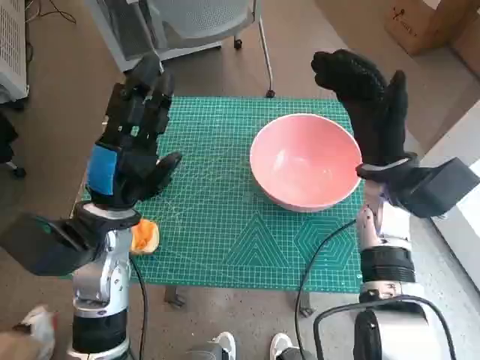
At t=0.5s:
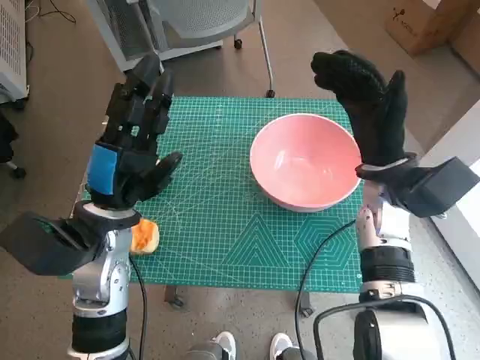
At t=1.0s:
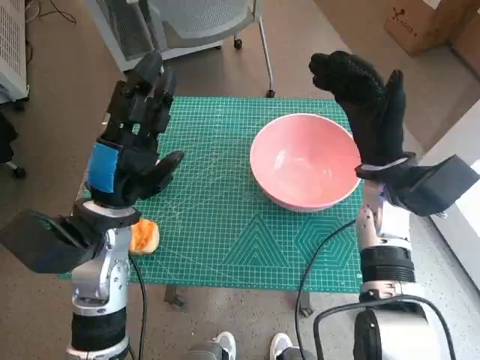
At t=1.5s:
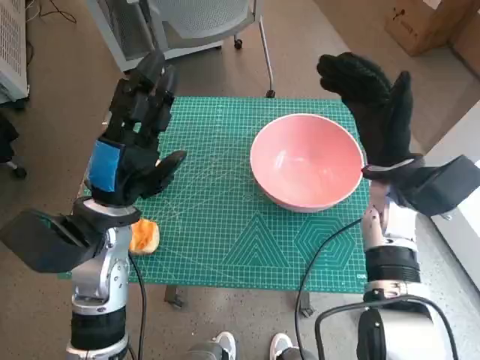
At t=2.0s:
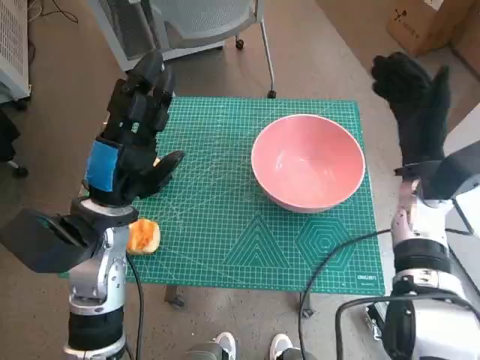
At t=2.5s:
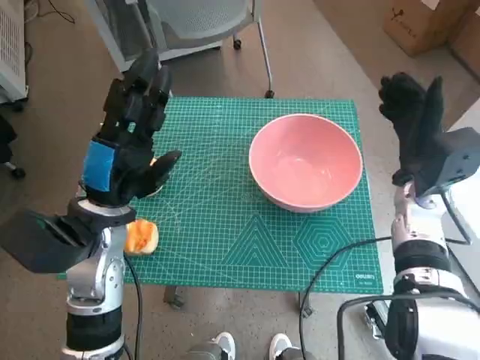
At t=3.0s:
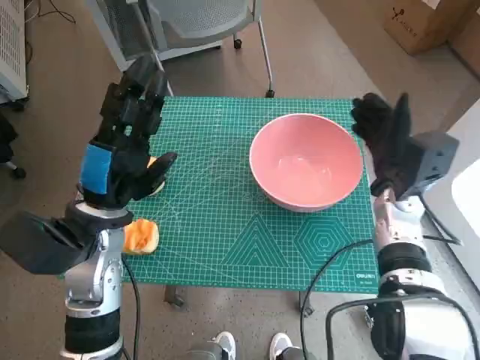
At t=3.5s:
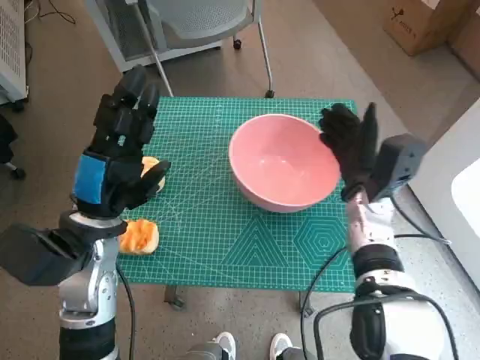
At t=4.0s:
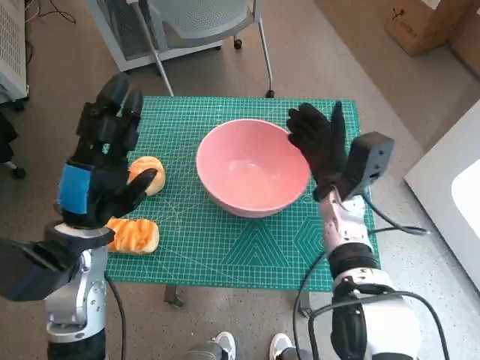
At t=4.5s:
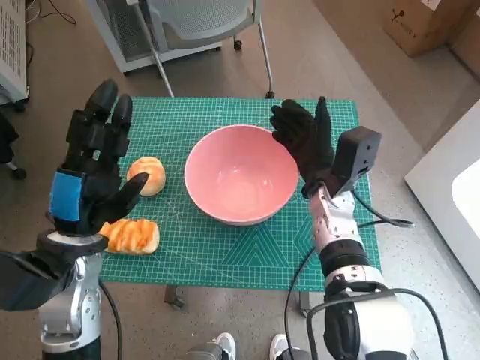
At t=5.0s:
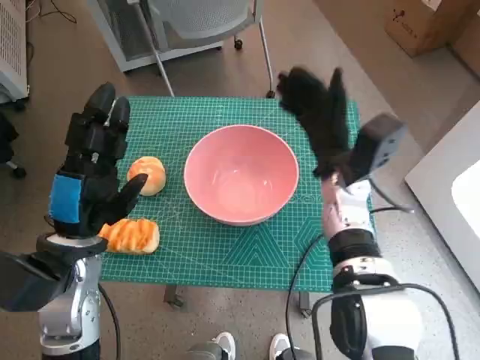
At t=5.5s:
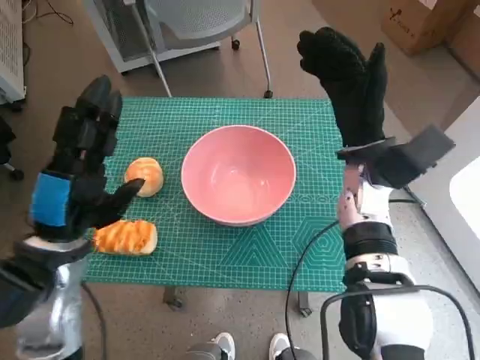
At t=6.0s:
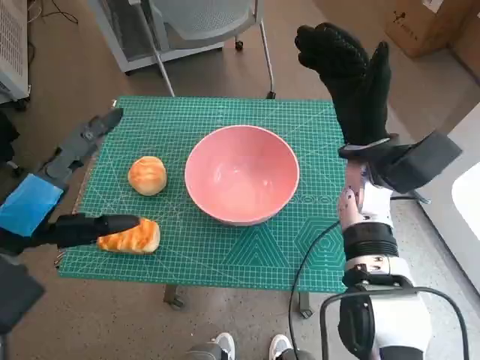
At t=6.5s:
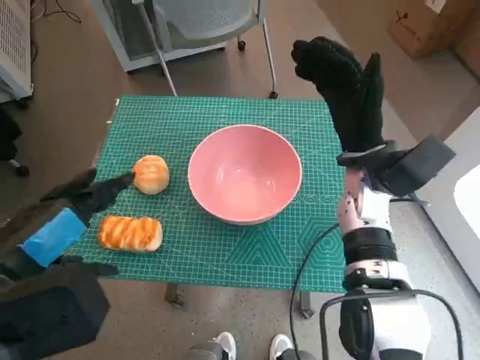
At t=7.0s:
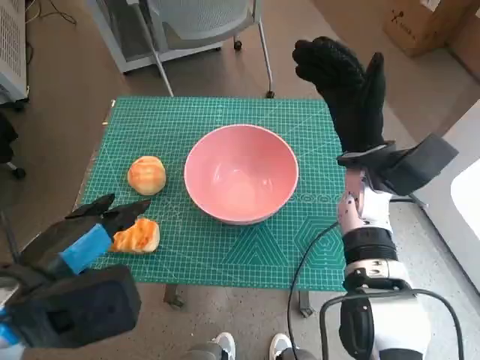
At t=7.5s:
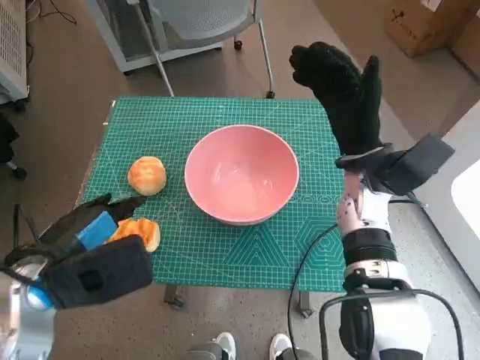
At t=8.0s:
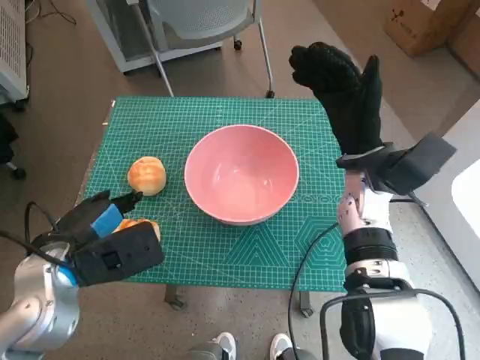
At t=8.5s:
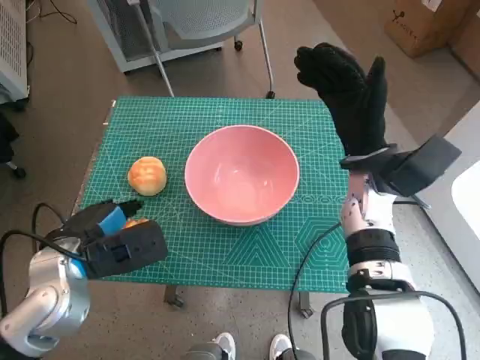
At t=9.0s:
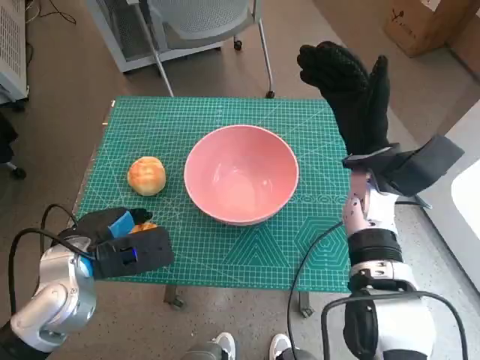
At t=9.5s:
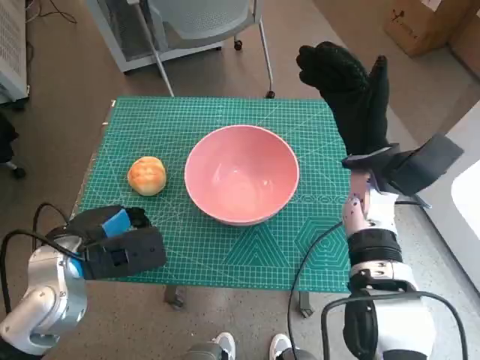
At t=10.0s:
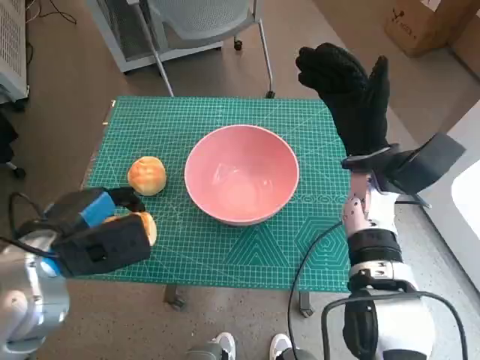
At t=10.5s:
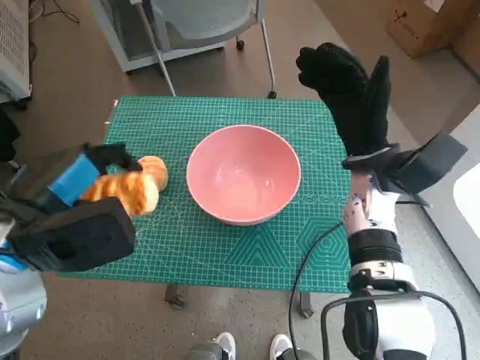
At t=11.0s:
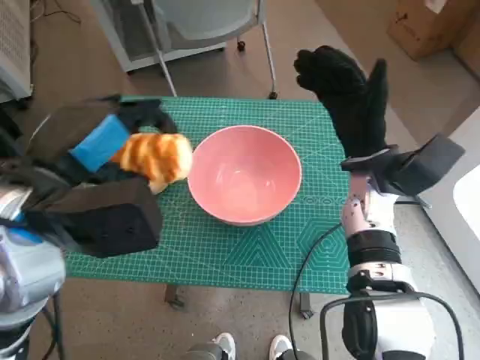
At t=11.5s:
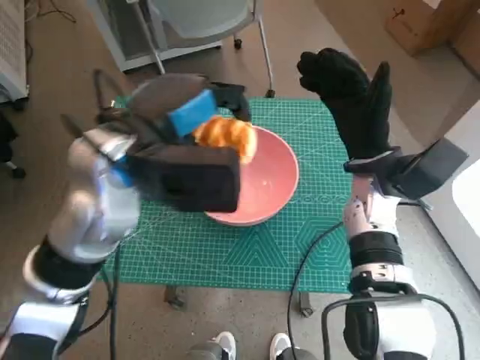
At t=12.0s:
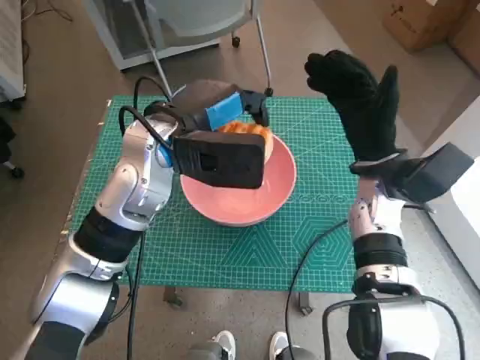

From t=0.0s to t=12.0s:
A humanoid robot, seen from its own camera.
Step, from t=0.0s to t=4.5s: Move the pink bowl to the center of table with right hand.
Step, from t=5.0s to t=9.0s: Grasp the long bread with left hand.
From t=2.0s to t=4.0s: The right hand travels to the left and downward by about 10 cm.
From t=4.0s to t=6.0s: The left hand goes roughly 10 cm upward and backward. The right hand travels upward by about 10 cm.
From t=6.0s to t=8.0s: The left hand shifts some 5 cm downward.
From t=8.0s to t=10.0s: The hands move only a little.
From t=10.0s to t=12.0s: The left hand goes roughly 20 cm to the right, forward and upward.

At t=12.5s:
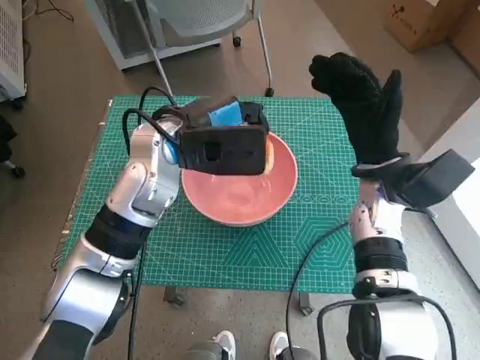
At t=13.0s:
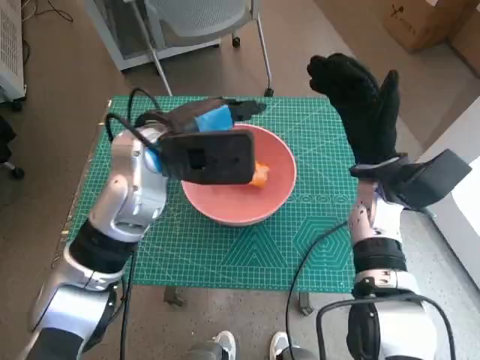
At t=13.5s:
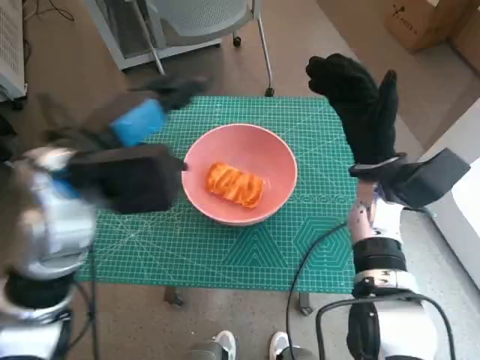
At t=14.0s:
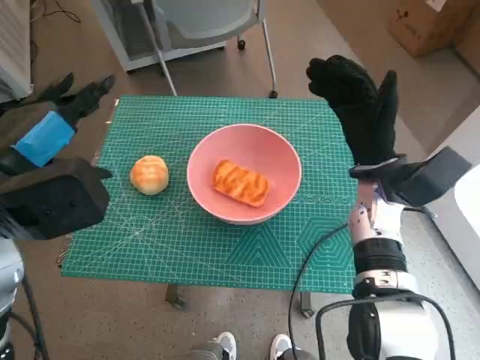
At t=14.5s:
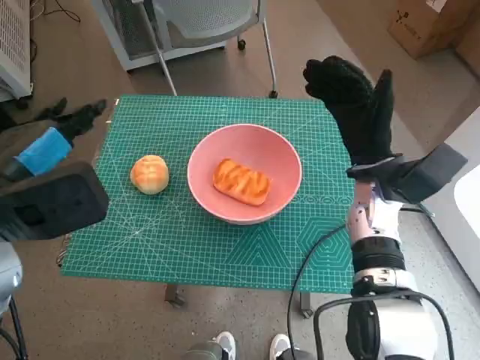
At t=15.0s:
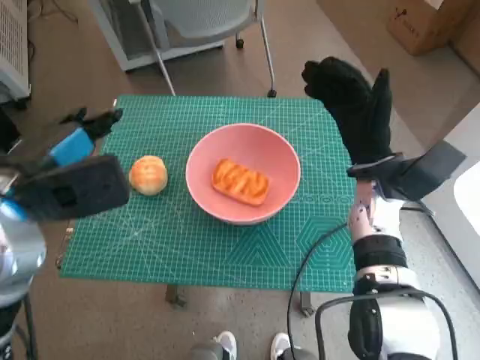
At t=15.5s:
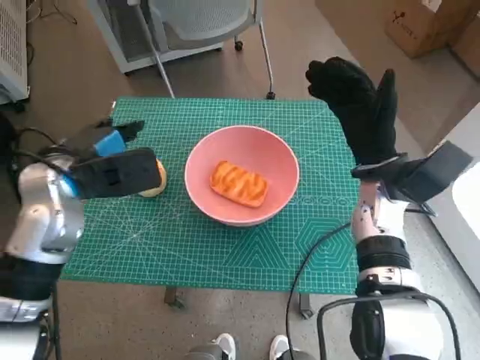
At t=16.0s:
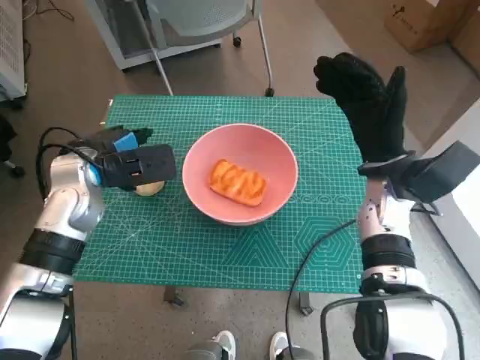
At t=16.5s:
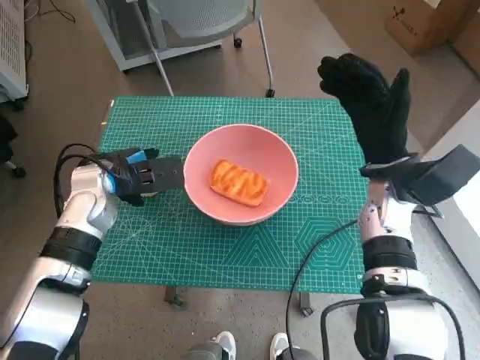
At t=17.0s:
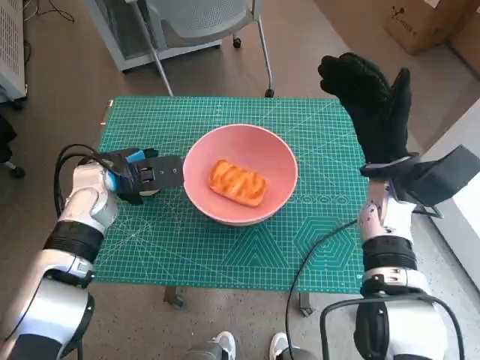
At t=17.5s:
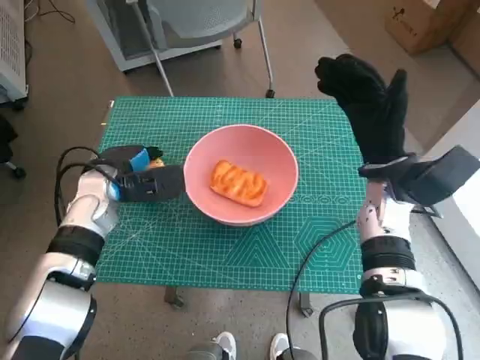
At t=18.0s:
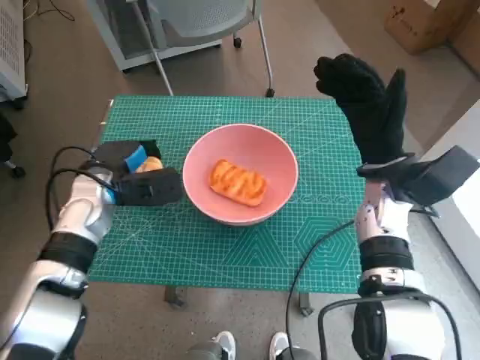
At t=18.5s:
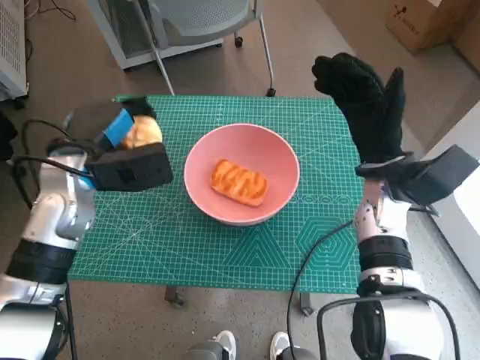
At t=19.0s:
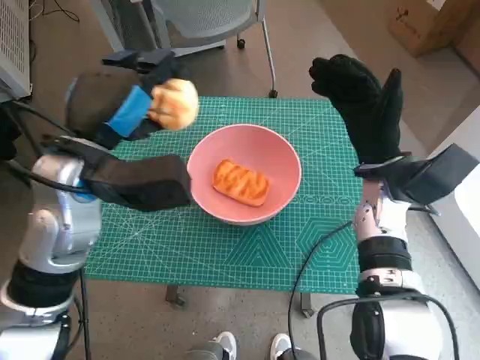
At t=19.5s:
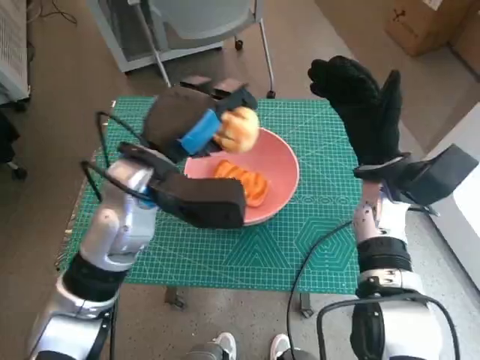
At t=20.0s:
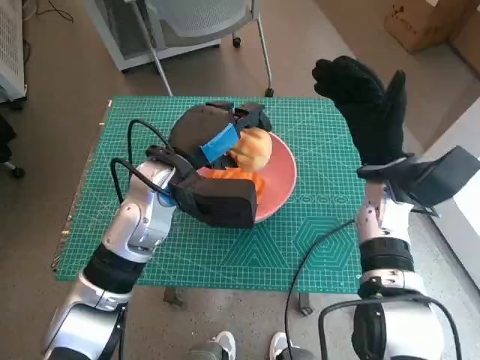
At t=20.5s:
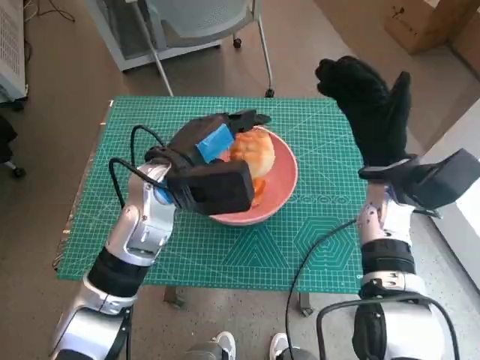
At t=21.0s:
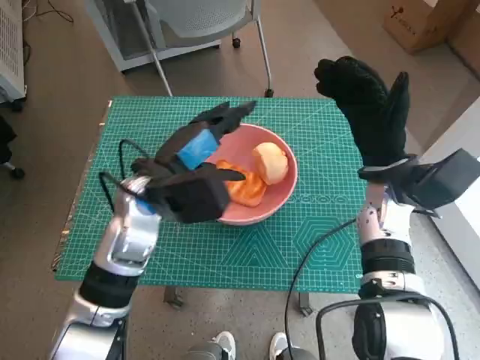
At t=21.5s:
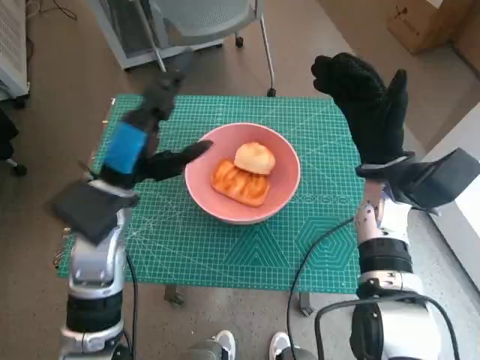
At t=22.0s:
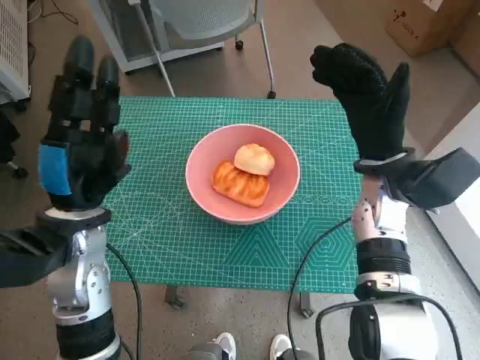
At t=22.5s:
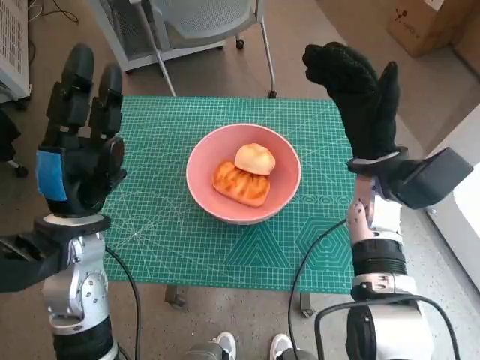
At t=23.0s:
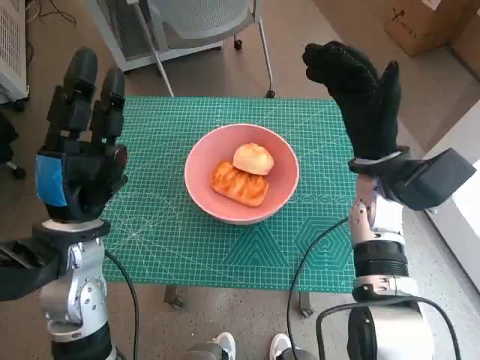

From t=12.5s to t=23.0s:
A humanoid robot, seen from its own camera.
Step, from t=13.5s to t=17.5s: Grasp the round bread with left hand.
Step, from t=18.0s to t=21.0s: Place the round bread in pink bowl with left hand.
From t=12.5s to t=14.5s: The left hand travels to the left and backward by some 20 cm.
From t=14.5s to t=16.5s: The left hand goes about 15 cm downward and forward.
From t=16.5s to t=19.0s: The left hand goes some 10 cm upward and backward.
From t=19.0s to t=21.0s: The left hand moves downward and to the right, about 10 cm.
From t=21.0s to t=23.0s: The left hand moves backward and to the left, some 10 cm.
